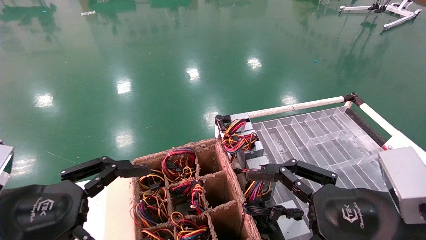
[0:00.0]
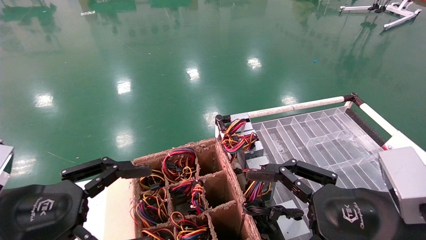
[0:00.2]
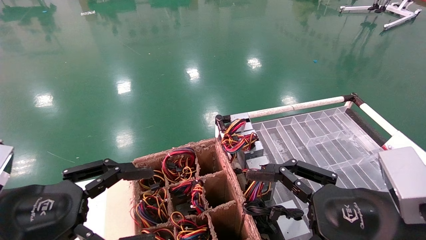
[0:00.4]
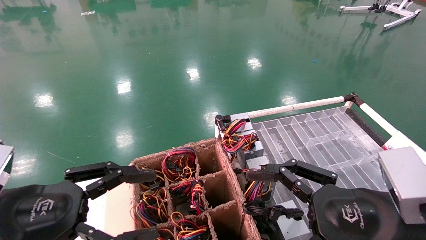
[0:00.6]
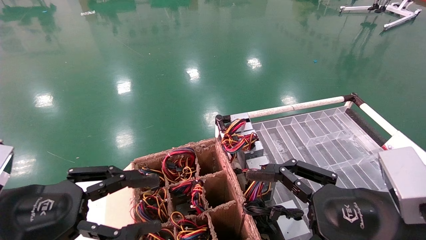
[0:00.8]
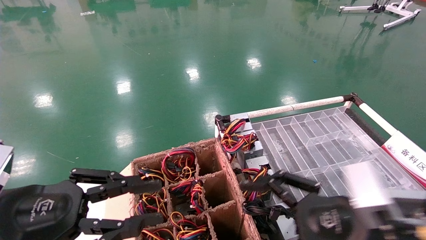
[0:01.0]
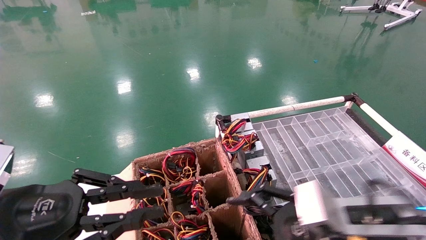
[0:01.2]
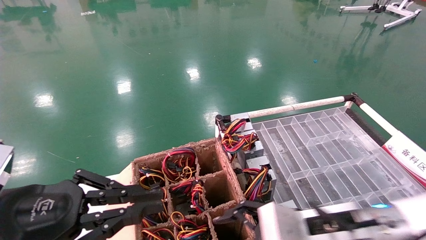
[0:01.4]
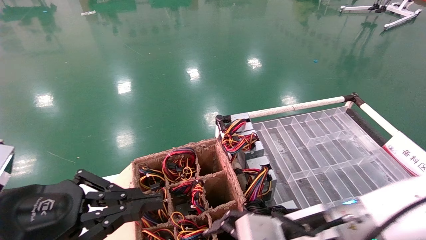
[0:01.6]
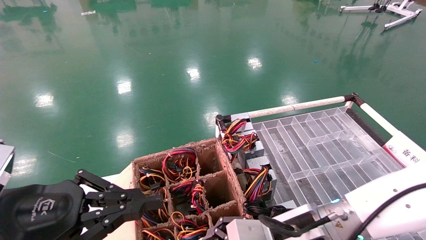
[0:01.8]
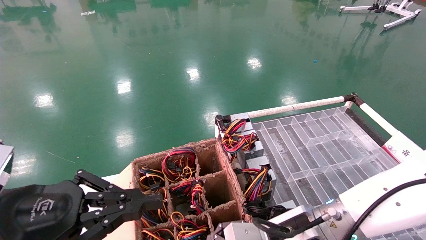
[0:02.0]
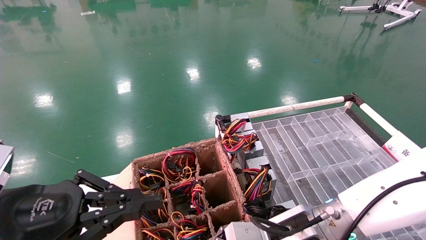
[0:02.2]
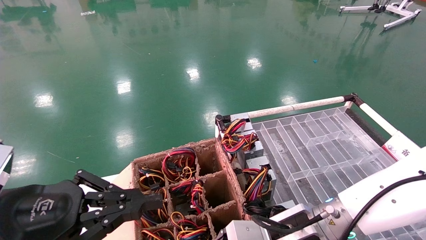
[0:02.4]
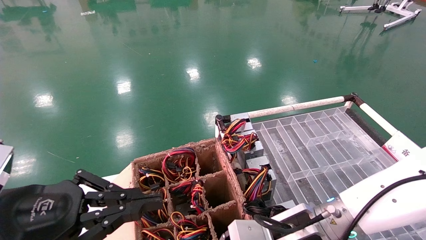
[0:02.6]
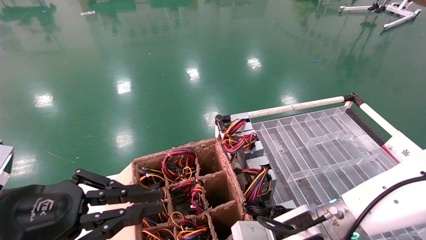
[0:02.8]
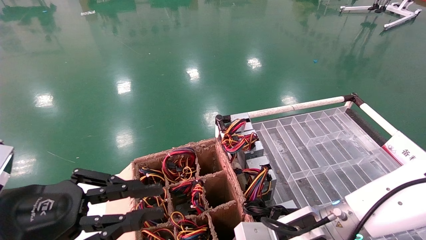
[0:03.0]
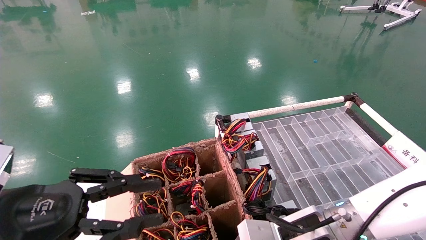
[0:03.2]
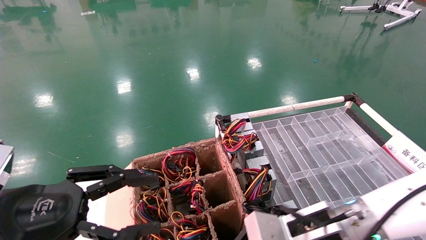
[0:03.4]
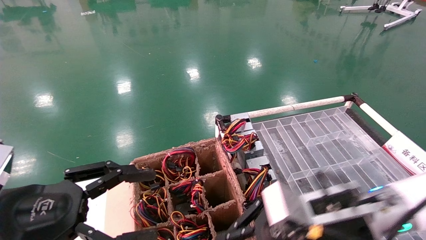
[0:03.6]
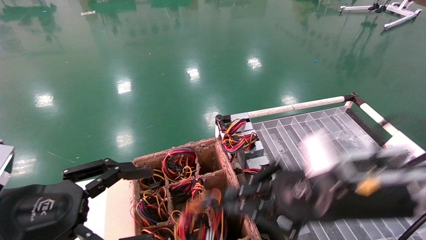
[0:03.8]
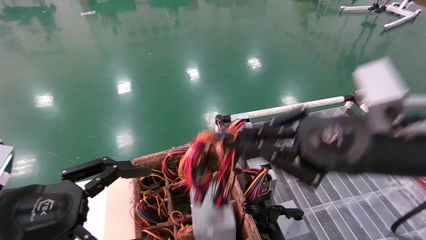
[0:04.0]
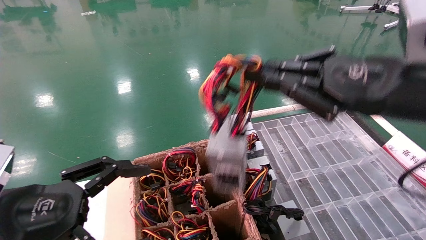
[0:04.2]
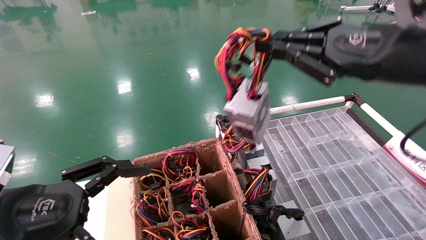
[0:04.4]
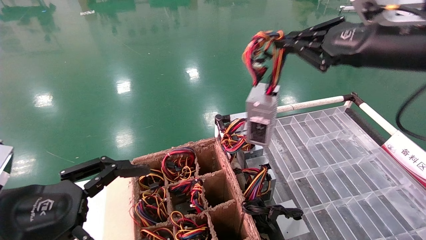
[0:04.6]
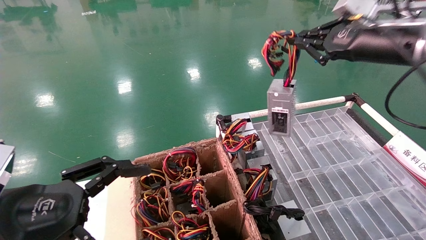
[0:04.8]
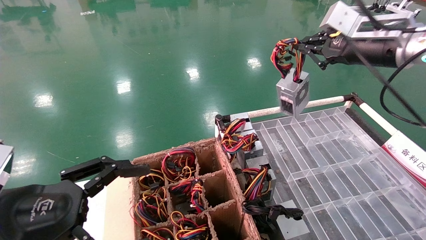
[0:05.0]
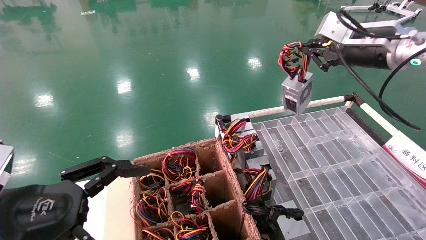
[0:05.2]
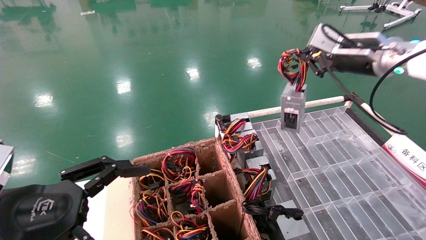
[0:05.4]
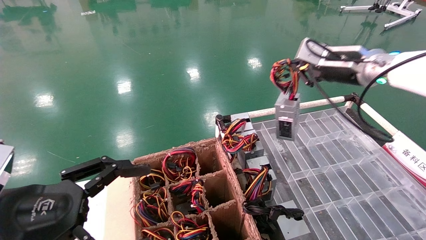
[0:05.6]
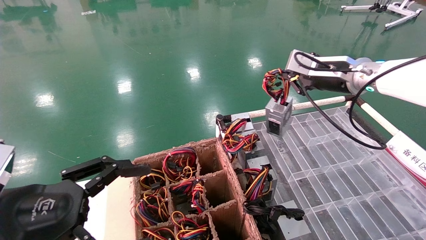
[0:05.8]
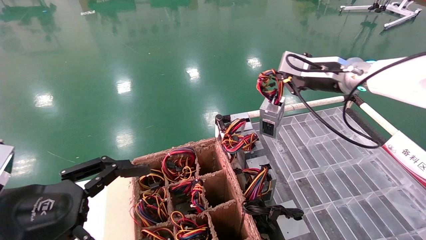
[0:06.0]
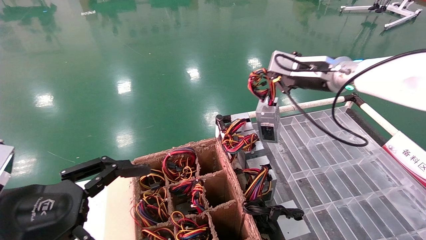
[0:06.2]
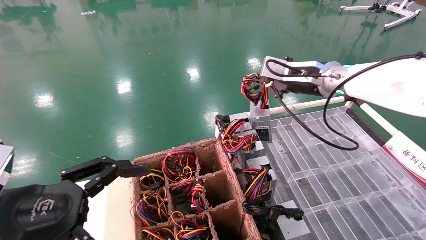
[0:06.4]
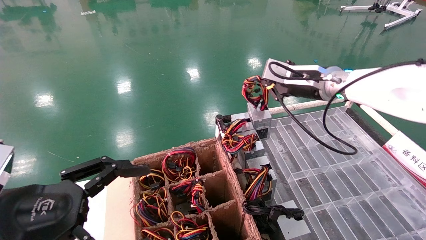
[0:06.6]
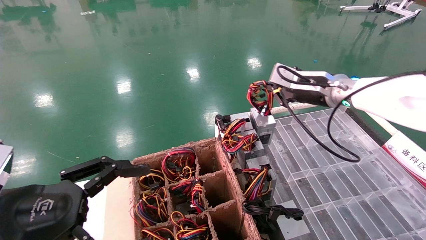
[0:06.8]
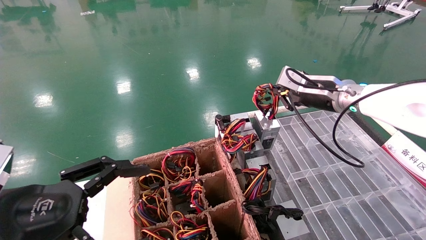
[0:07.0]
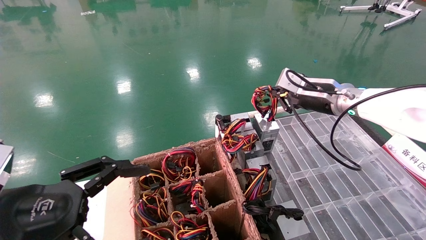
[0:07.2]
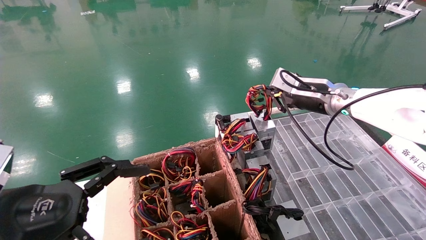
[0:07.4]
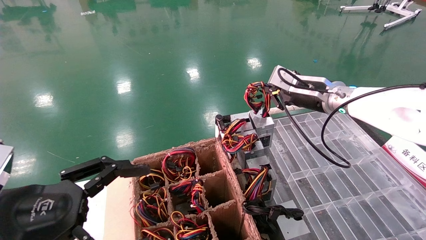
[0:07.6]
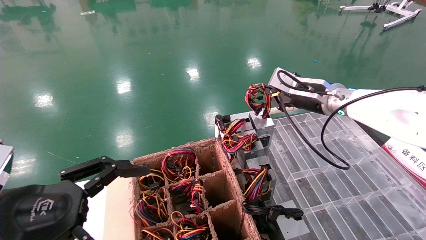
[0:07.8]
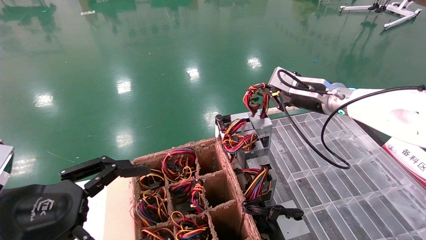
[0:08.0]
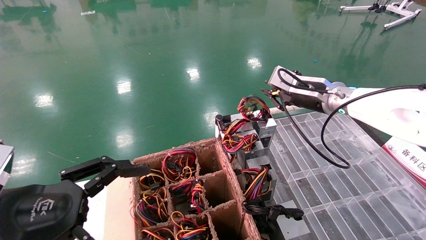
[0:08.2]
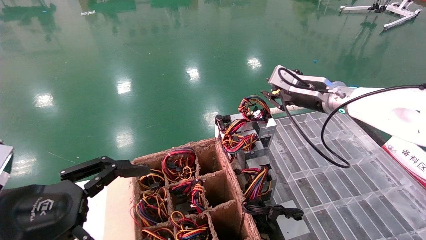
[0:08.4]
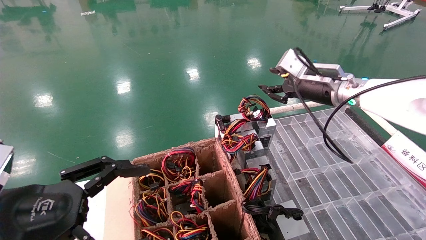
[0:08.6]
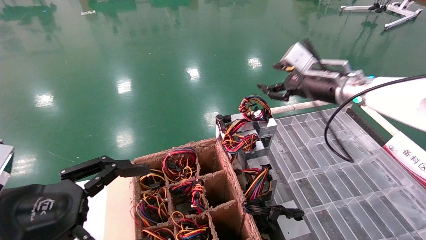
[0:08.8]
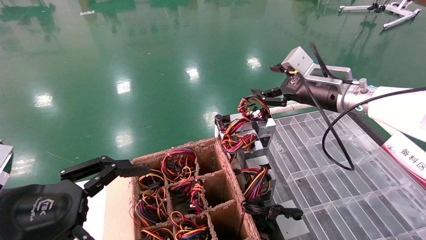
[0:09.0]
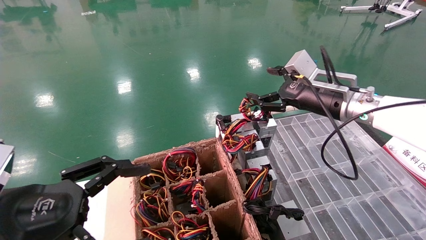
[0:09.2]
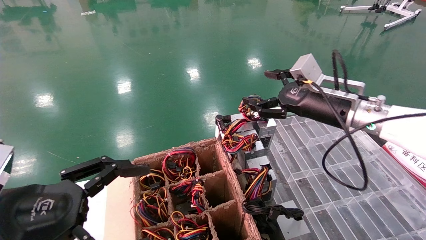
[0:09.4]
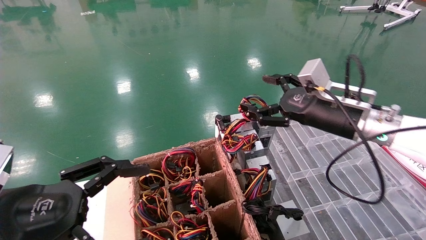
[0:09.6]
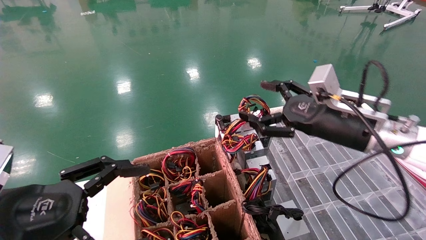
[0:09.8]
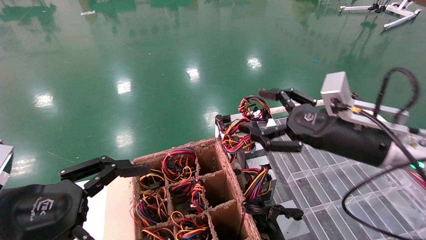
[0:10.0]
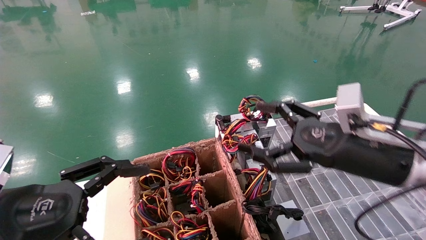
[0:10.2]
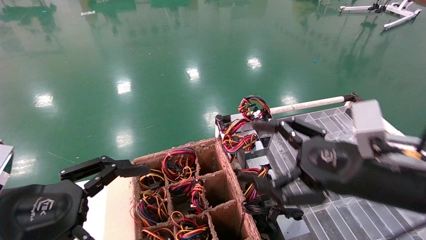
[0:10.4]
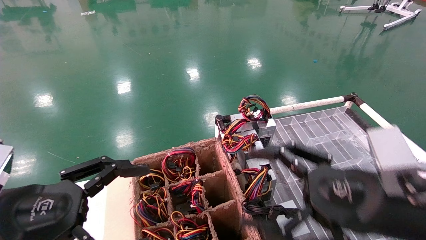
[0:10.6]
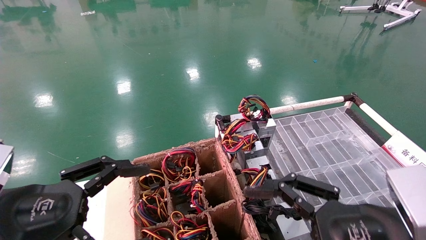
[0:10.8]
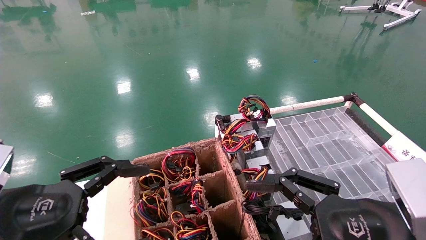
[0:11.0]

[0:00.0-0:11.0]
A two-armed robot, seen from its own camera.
Step, 0:01.6 to 0:03.0: Grab and lift the power supply from the large box.
Step, 0:03.2 to 0:08.0: Place the power supply on the operating table.
0:00.0 to 0:01.6: The right gripper moves to the left, forward and downward, some 15 cm; the left gripper closes its fingers.
0:01.6 to 0:03.2: The right gripper closes its fingers.
0:03.2 to 0:04.8: The left gripper opens; the right gripper travels upward and to the right by roughly 30 cm.
0:04.8 to 0:06.2: The right gripper is displaced forward, to the left and downward by approximately 10 cm.
0:06.2 to 0:07.8: The right gripper is displaced downward by about 5 cm.
0:07.8 to 0:09.4: The right gripper heads backward, covering some 5 cm, and opens its fingers.
0:09.4 to 0:11.0: The right gripper heads backward, covering approximately 20 cm.

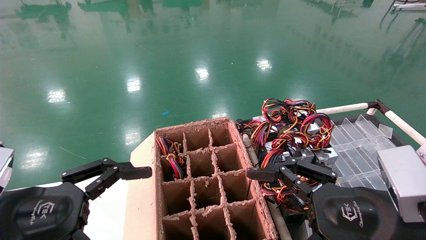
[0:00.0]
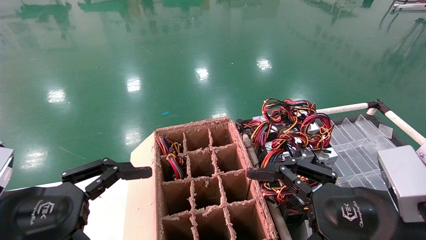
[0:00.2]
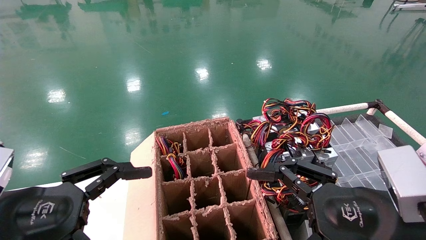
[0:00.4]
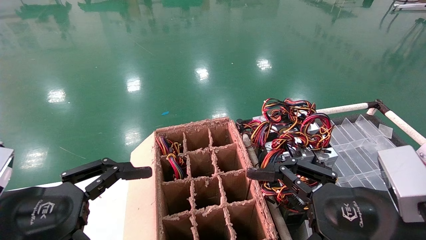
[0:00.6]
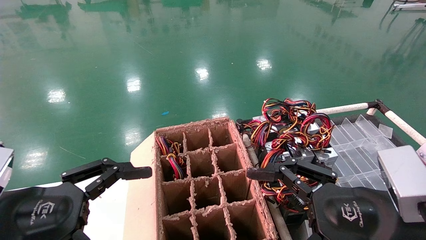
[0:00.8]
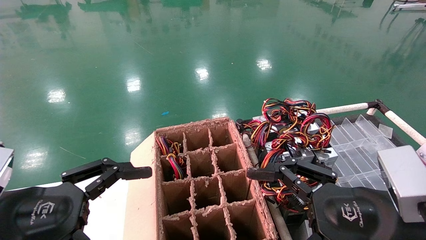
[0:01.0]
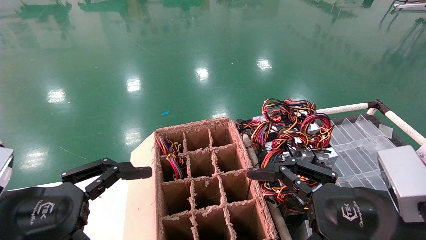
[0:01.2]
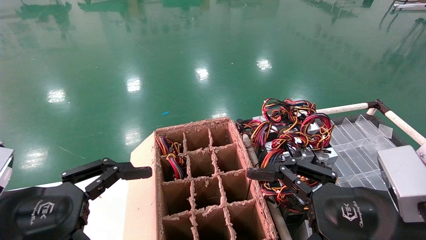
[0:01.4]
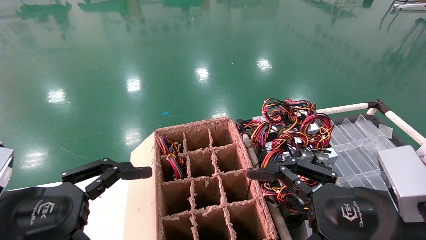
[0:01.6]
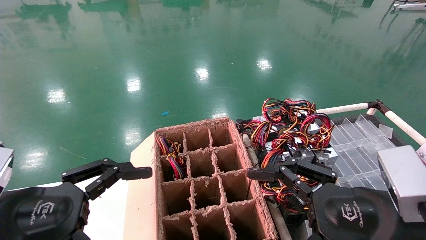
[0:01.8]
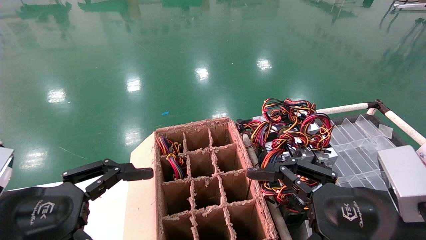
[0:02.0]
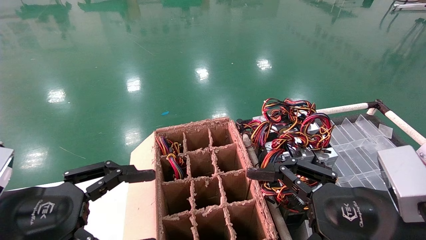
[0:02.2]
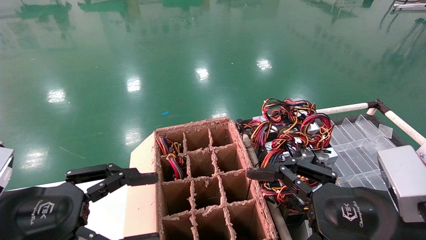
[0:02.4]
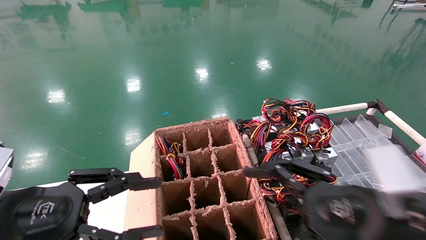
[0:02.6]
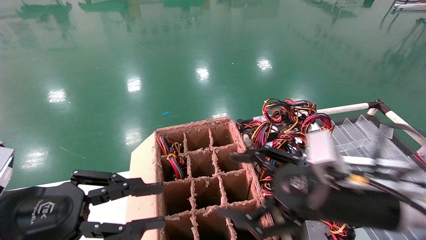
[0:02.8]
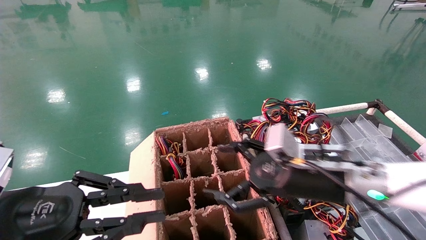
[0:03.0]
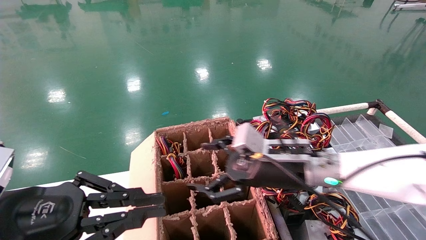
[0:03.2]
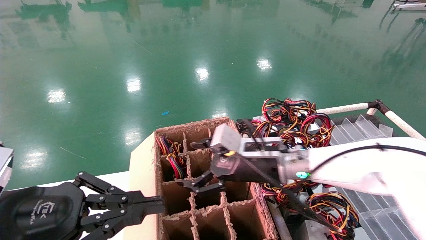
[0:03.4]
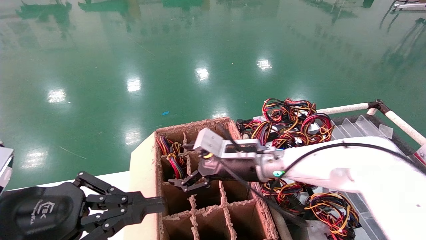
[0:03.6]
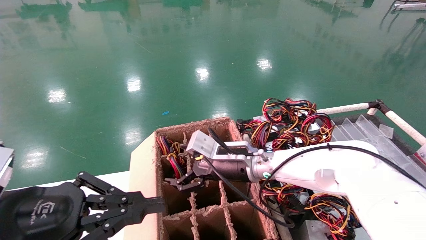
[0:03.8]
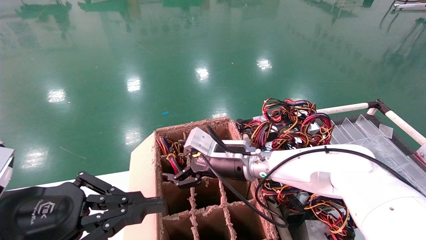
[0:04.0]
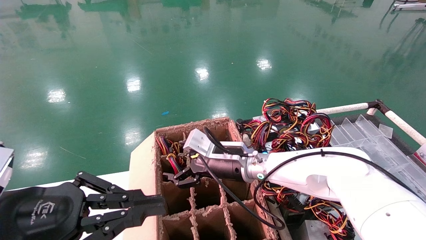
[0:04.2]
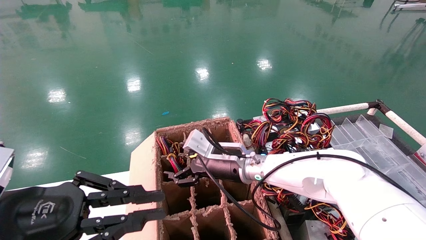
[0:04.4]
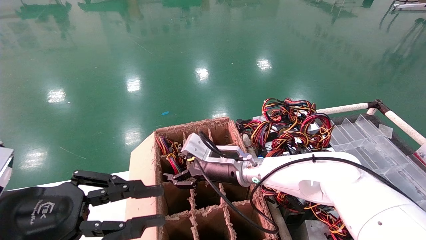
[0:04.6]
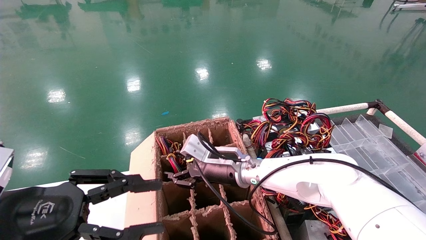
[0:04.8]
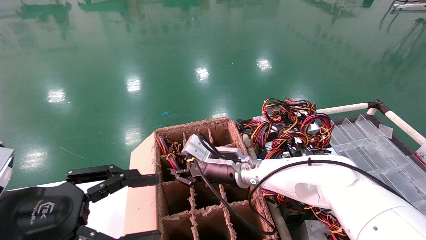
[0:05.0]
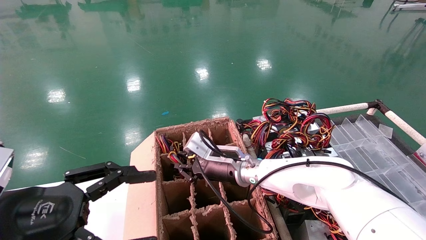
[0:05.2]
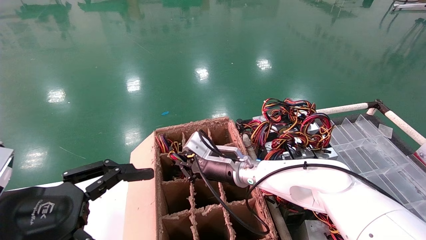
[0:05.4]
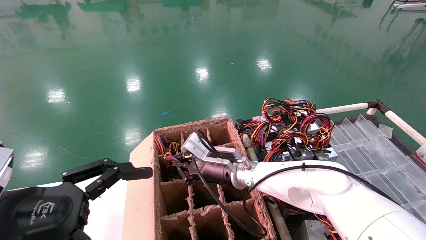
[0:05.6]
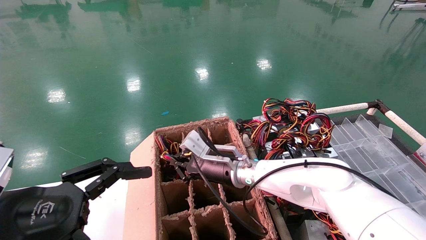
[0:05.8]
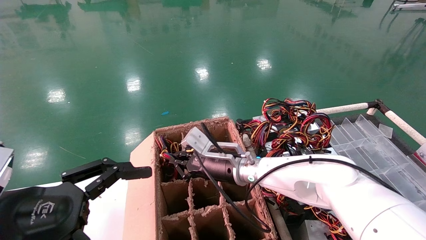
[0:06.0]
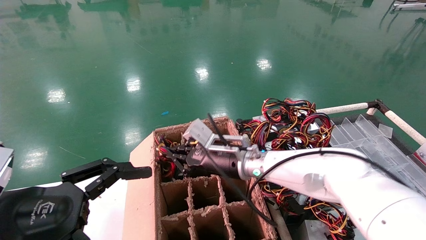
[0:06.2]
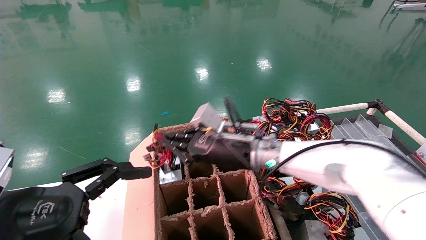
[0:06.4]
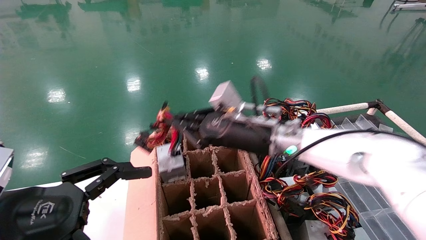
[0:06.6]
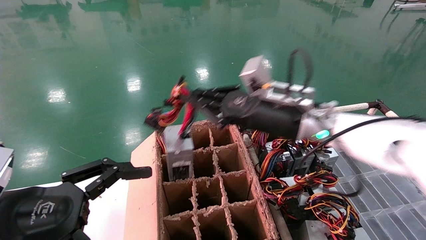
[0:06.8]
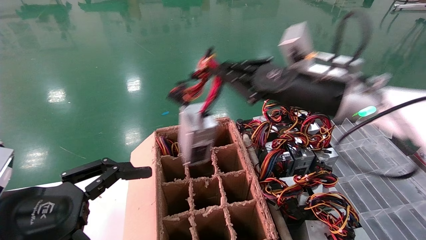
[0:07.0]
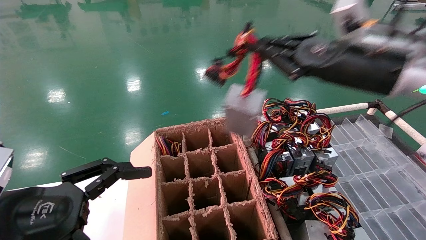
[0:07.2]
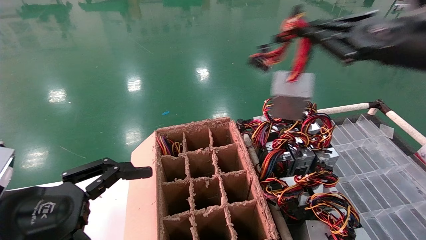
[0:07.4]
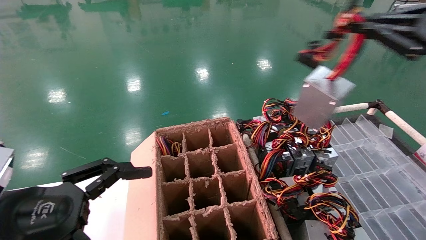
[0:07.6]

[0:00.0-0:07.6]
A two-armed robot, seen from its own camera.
Step, 0:02.0 to 0:05.6: Grab and lift the power supply from the large box.
0:00.0 to 0:01.6: Both grippers stay about where they are.
0:01.6 to 0:03.0: The left gripper closes up. The right gripper heads forward and to the left, covering about 15 cm.
0:03.0 to 0:04.6: The right gripper moves to the left and forward, approximately 20 cm.
0:04.6 to 0:06.0: The right gripper closes its fingers. Meanwhile the left gripper opens up.
0:06.0 to 0:07.6: The right gripper moves to the right, upward and backward, some 50 cm.
